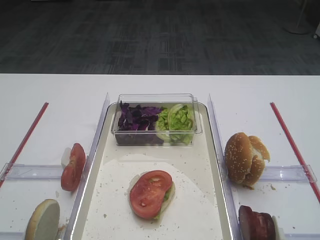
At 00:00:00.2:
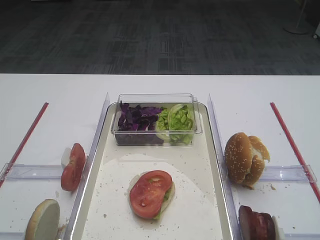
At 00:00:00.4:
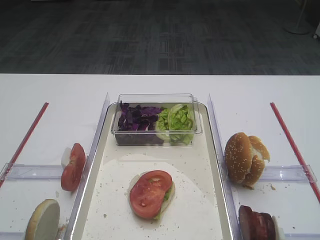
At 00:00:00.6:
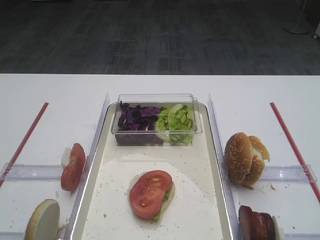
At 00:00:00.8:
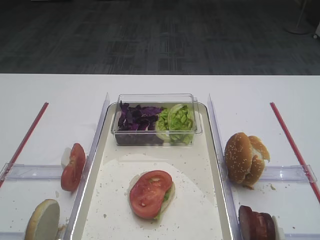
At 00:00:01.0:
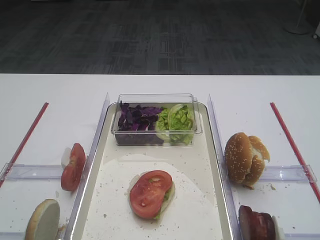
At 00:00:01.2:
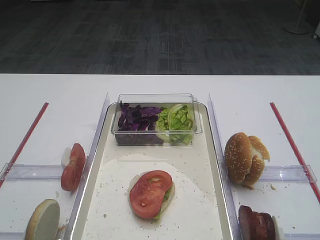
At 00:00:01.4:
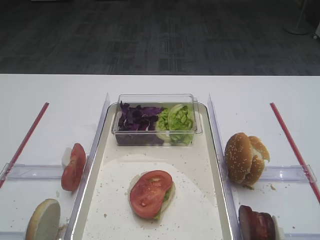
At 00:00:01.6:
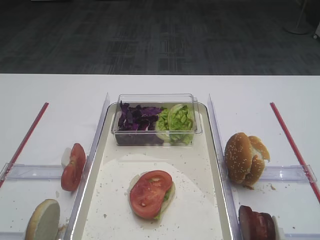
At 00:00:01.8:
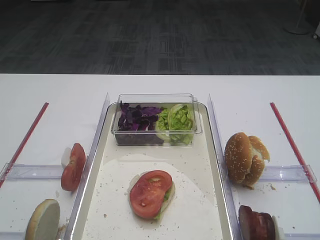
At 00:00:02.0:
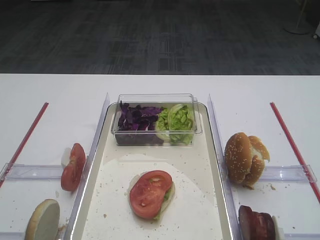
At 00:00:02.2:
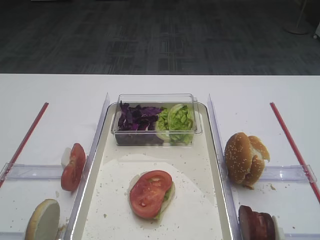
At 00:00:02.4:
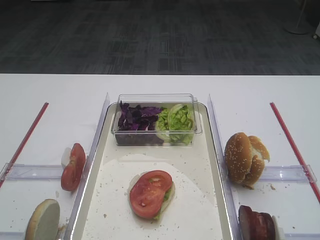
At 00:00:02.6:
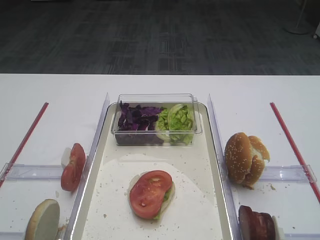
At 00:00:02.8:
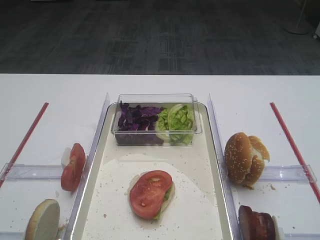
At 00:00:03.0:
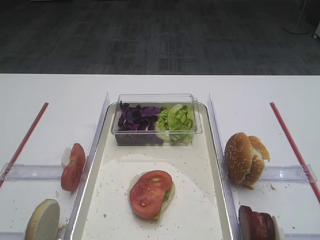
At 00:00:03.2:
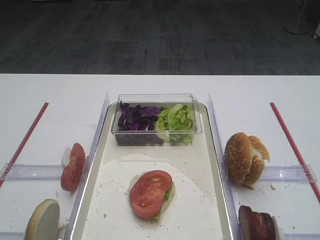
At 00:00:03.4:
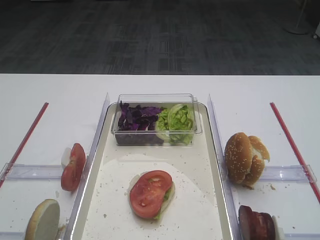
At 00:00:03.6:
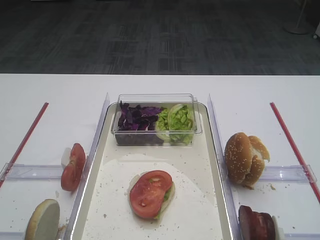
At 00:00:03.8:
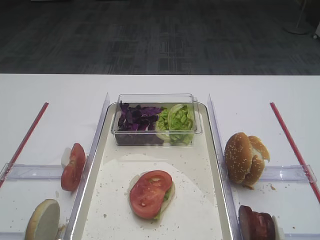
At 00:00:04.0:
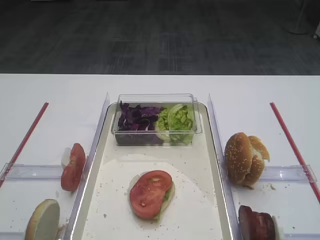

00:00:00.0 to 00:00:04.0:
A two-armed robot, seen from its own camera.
00:00:01.4 to 00:00:04.0: Neither gripper changes place.

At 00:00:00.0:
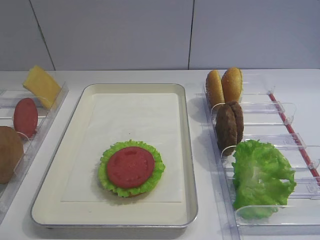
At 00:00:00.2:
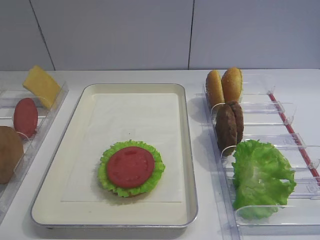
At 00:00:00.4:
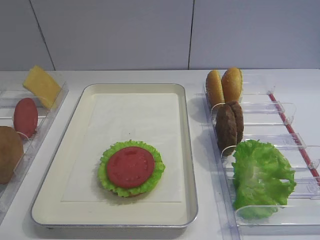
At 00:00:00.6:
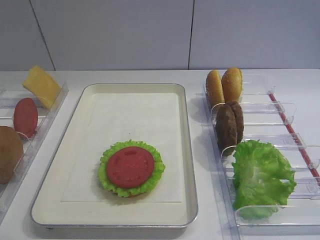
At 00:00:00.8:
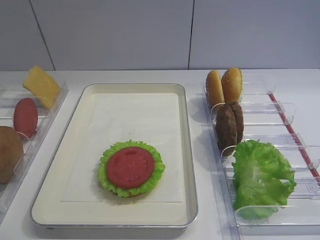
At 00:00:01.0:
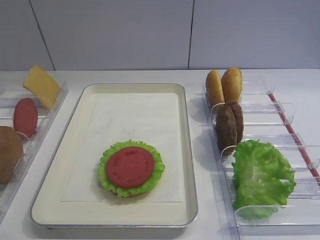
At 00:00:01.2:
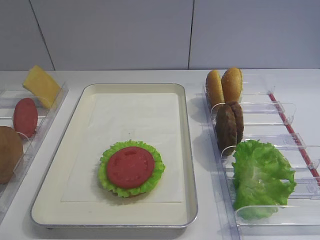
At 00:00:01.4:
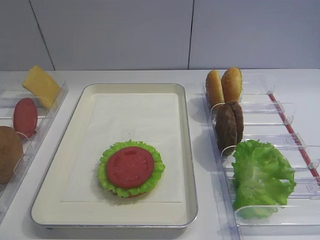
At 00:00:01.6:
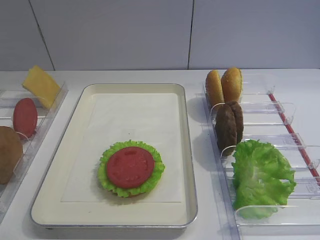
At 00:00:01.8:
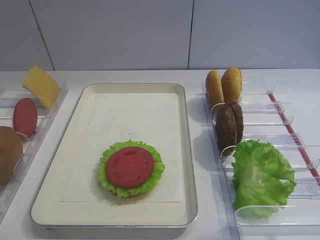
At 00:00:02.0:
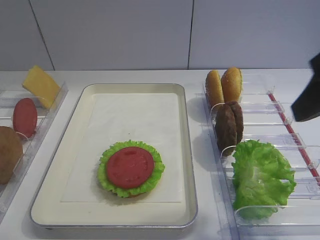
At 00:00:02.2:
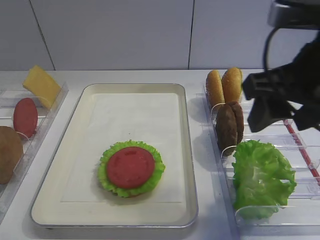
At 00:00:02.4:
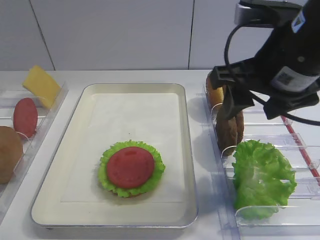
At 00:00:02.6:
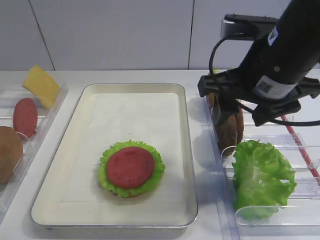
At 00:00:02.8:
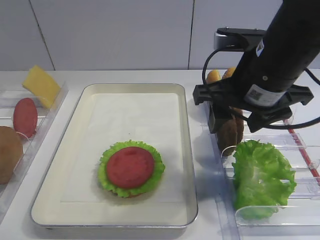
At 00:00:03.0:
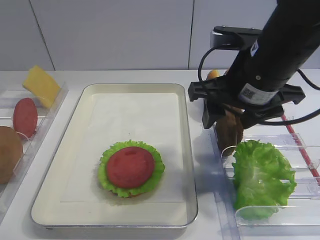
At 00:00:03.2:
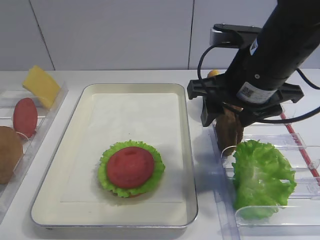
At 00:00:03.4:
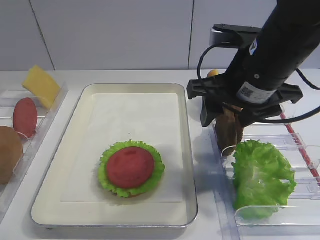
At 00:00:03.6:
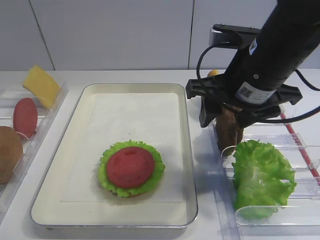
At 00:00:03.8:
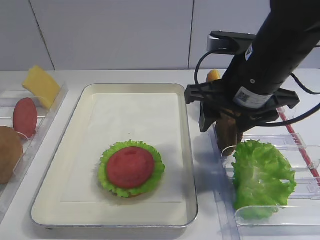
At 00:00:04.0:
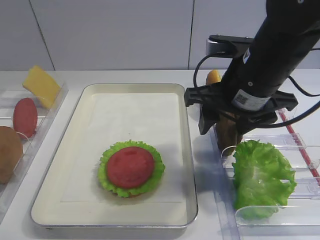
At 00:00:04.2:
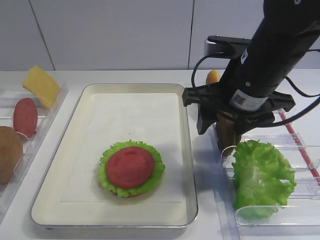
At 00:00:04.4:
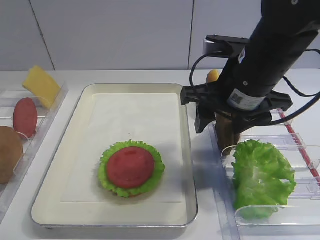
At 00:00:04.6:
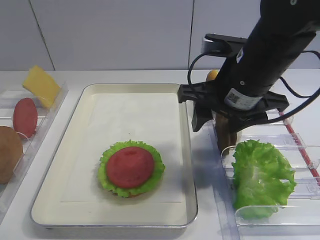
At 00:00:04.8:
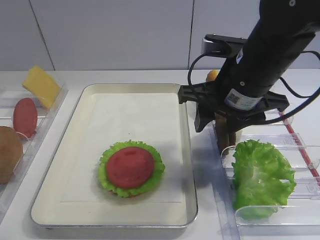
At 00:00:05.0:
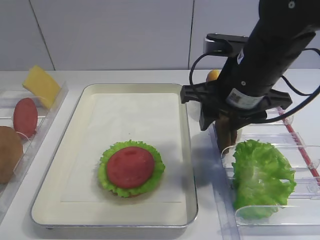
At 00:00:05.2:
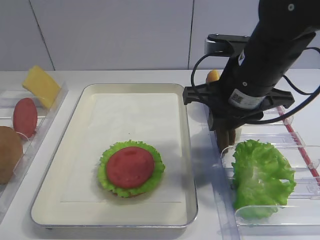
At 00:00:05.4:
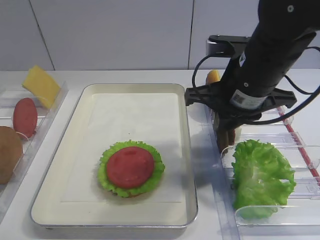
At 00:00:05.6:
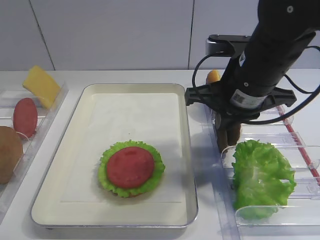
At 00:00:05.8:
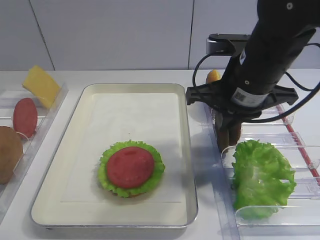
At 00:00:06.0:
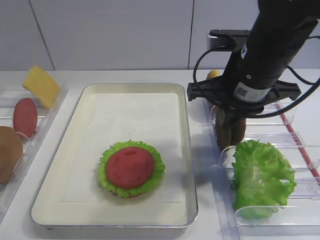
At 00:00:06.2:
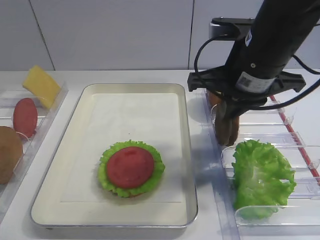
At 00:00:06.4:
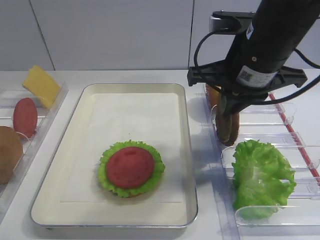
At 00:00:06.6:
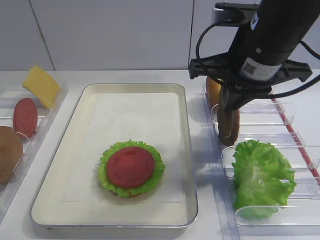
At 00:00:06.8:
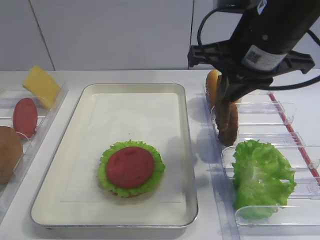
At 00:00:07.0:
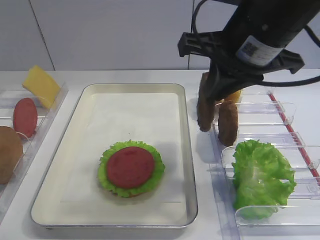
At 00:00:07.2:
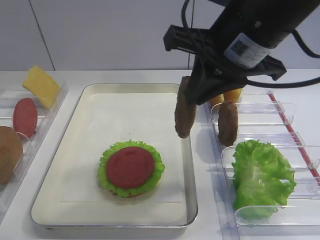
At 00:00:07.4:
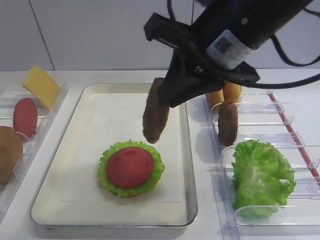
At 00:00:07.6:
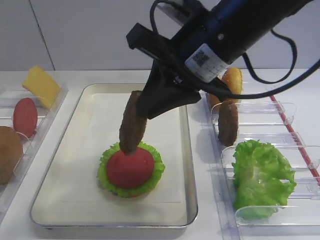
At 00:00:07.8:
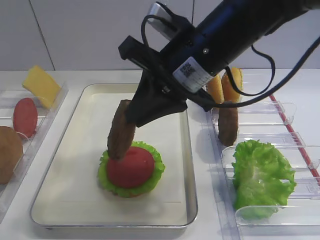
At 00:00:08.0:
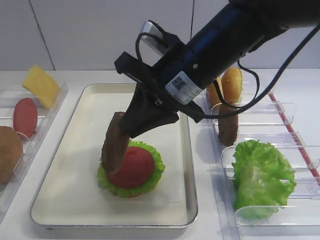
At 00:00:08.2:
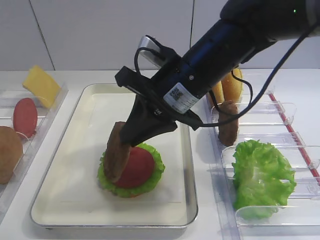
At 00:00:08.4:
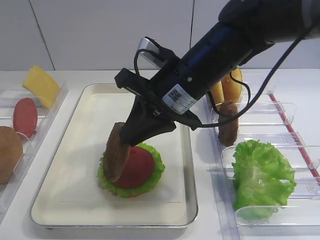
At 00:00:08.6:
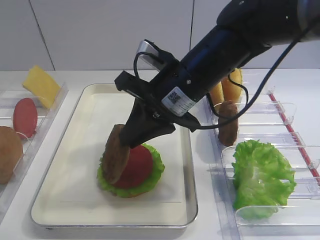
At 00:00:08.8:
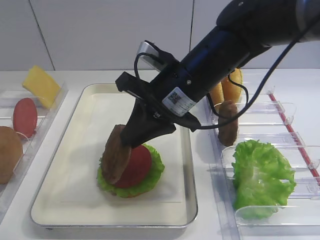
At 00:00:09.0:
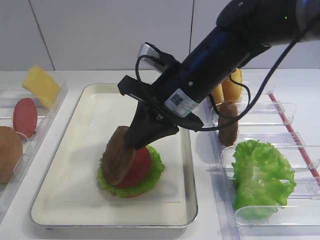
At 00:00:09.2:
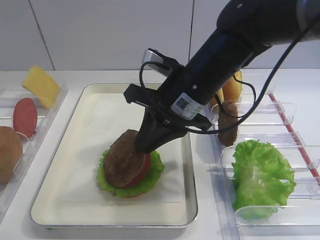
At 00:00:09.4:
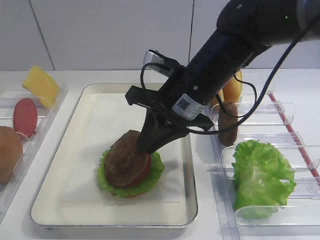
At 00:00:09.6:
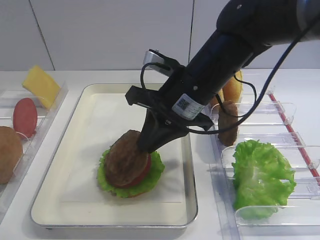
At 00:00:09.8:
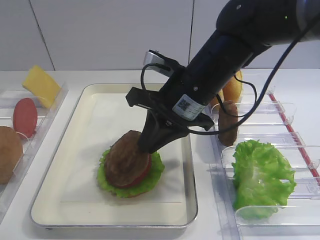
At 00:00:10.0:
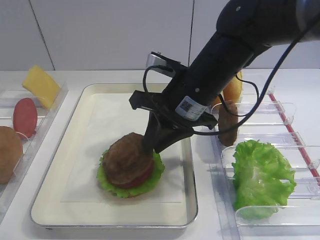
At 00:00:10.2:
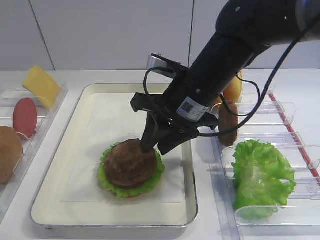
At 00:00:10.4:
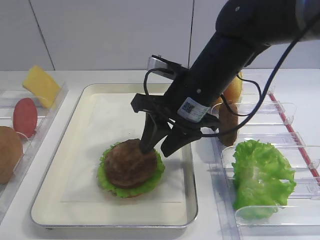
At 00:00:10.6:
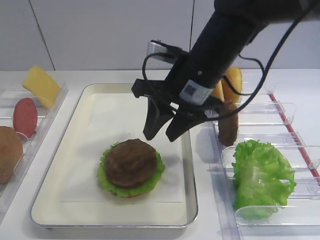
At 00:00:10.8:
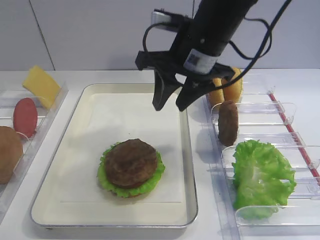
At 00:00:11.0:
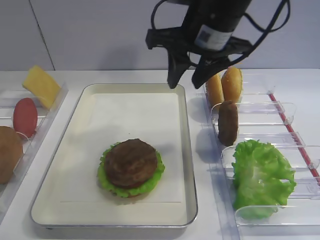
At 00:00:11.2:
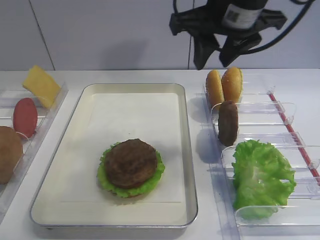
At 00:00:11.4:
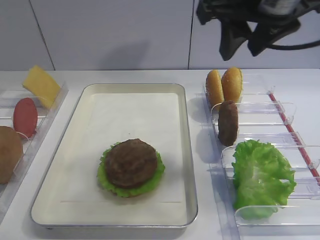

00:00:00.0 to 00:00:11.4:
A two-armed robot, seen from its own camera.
Step, 00:00:00.0 to 00:00:06.6: Pick up the cutlet with the right gripper.
Step, 00:00:06.8 to 00:00:10.6: Place the cutlet on the tomato slice with the right gripper.
00:00:01.4 to 00:00:02.8: The right gripper shifts about 25 cm forward and to the left.
00:00:02.8 to 00:00:04.2: The grippers move only a little.
00:00:04.2 to 00:00:05.6: The right gripper closes its fingers.
00:00:05.6 to 00:00:07.2: The right gripper moves upward, some 10 cm.
00:00:07.2 to 00:00:08.6: The right gripper shifts approximately 10 cm downward and to the left.
00:00:08.6 to 00:00:10.0: There are only small adjustments of the grippers.
00:00:10.0 to 00:00:11.4: The right gripper goes roughly 15 cm upward and to the right, and opens its fingers.

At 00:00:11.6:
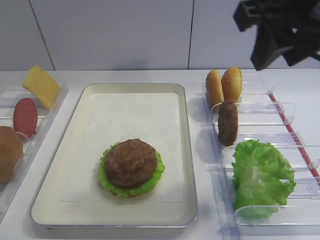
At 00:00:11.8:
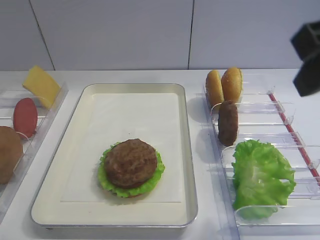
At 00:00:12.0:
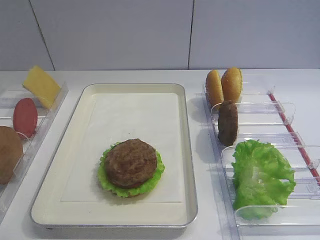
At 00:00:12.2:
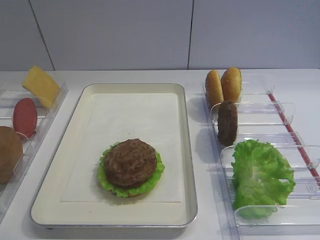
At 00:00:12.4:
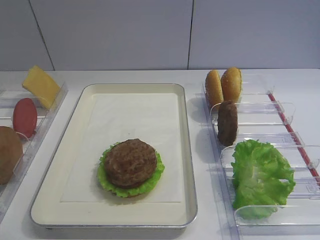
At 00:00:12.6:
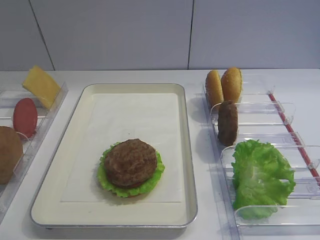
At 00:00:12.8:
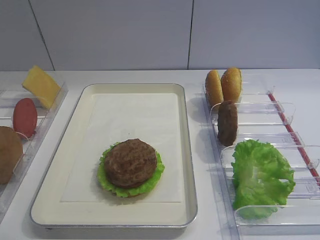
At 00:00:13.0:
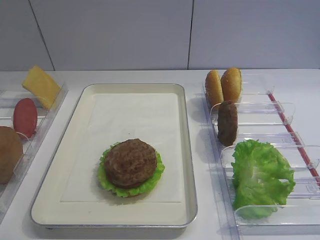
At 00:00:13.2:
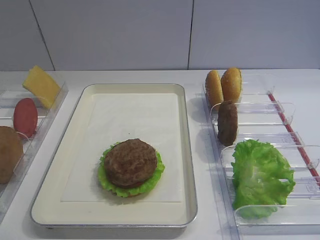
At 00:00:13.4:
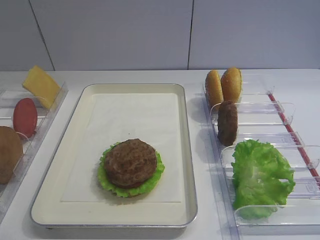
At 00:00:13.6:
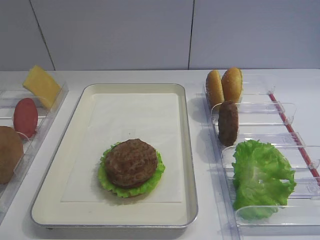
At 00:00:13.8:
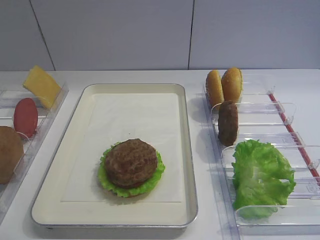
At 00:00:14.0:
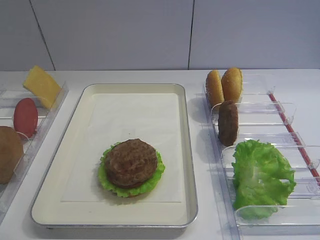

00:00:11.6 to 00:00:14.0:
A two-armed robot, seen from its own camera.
00:00:11.6 to 00:00:12.8: The right gripper travels backward and to the right by some 25 cm.
